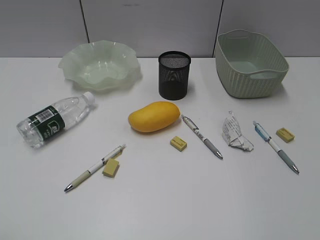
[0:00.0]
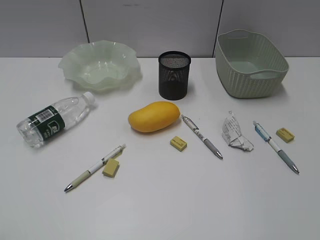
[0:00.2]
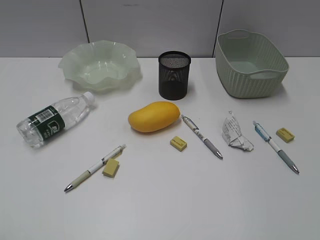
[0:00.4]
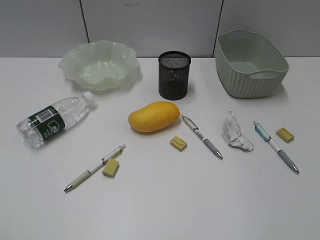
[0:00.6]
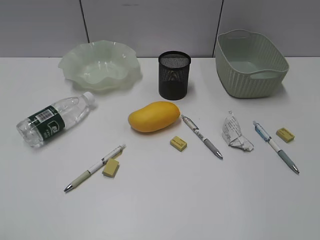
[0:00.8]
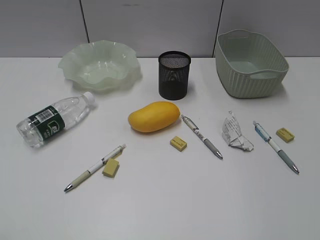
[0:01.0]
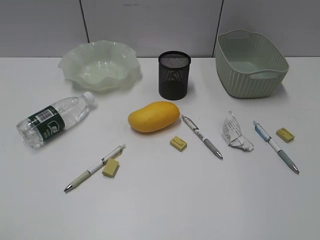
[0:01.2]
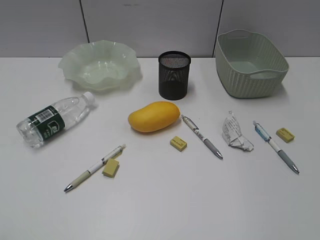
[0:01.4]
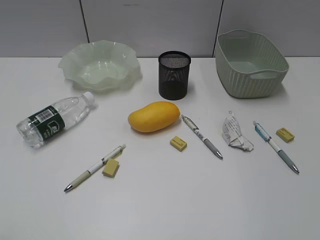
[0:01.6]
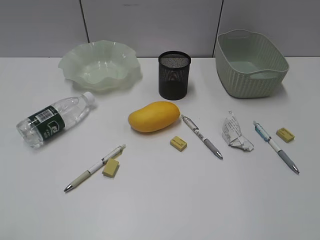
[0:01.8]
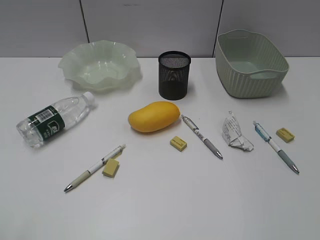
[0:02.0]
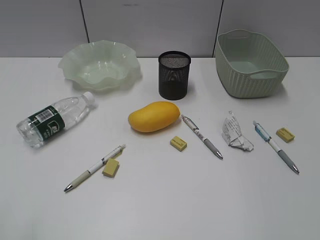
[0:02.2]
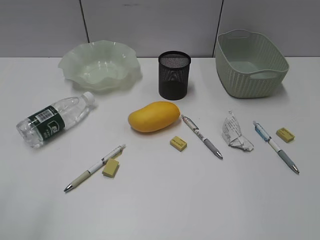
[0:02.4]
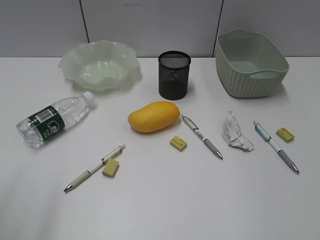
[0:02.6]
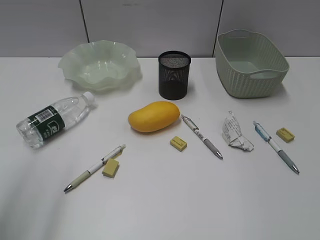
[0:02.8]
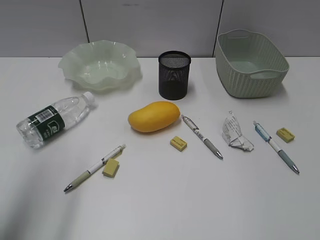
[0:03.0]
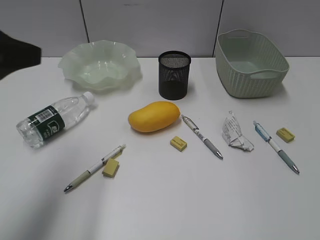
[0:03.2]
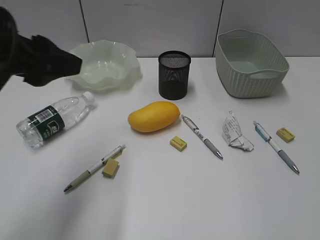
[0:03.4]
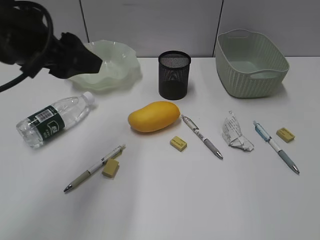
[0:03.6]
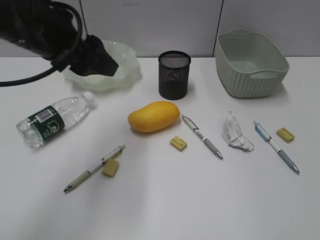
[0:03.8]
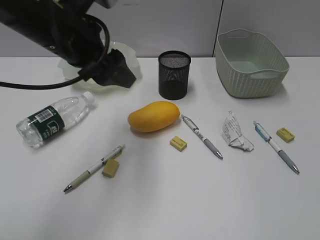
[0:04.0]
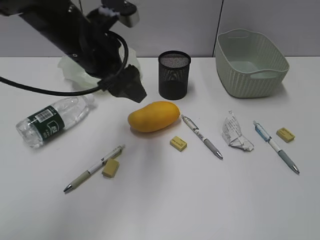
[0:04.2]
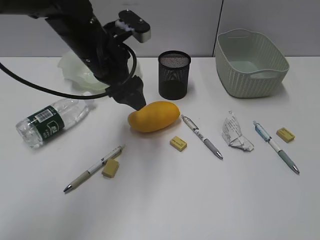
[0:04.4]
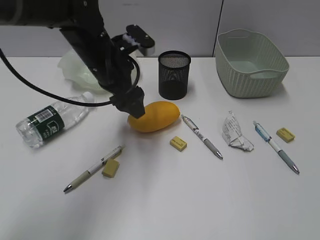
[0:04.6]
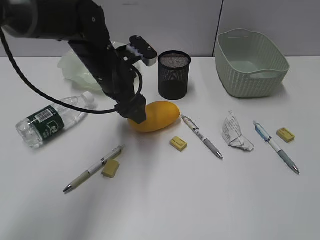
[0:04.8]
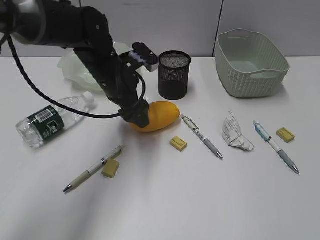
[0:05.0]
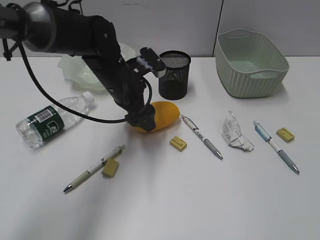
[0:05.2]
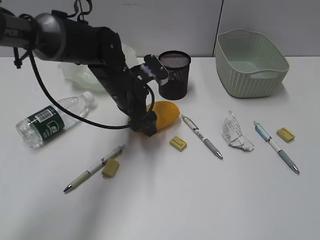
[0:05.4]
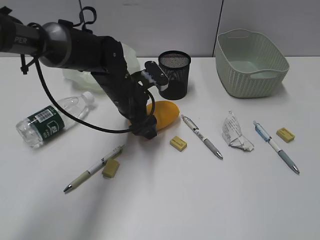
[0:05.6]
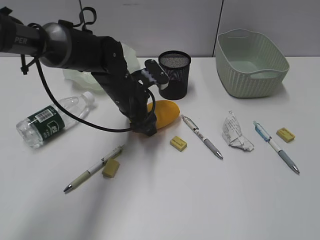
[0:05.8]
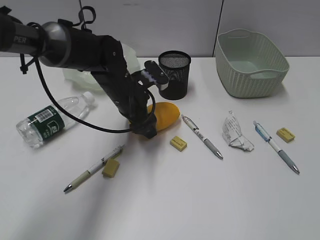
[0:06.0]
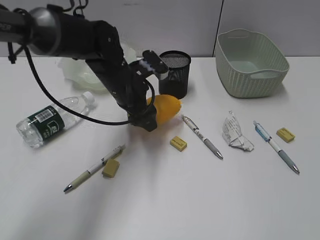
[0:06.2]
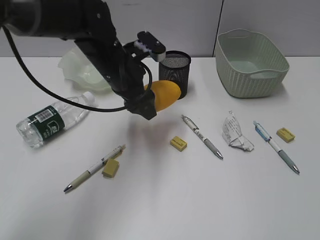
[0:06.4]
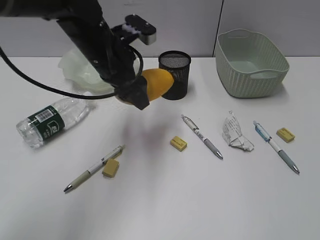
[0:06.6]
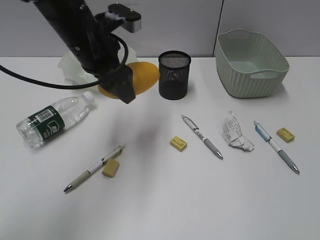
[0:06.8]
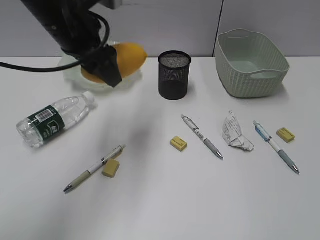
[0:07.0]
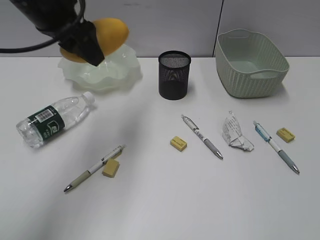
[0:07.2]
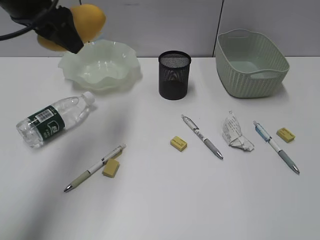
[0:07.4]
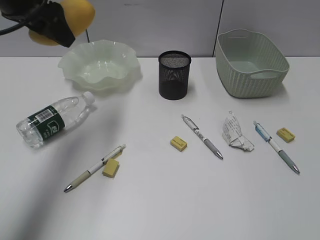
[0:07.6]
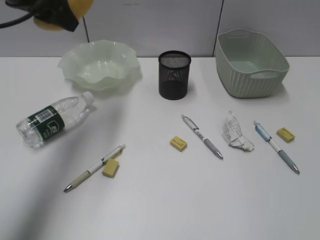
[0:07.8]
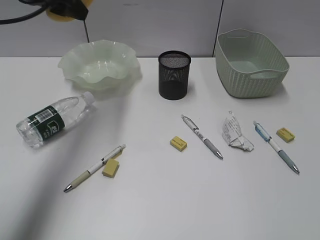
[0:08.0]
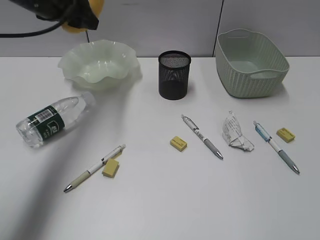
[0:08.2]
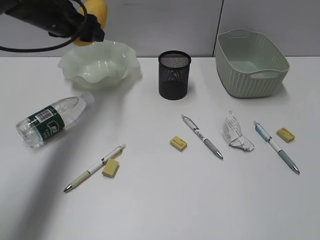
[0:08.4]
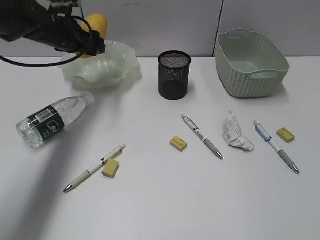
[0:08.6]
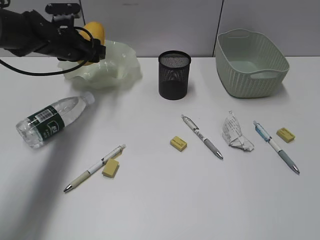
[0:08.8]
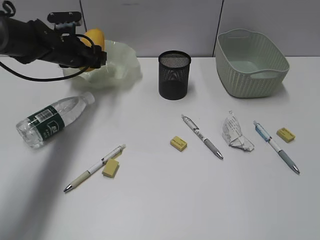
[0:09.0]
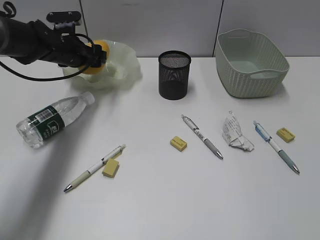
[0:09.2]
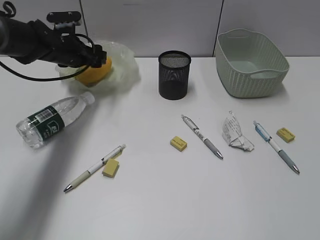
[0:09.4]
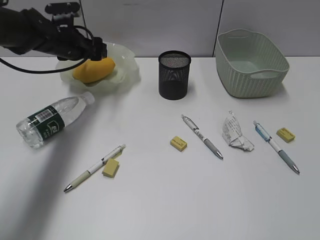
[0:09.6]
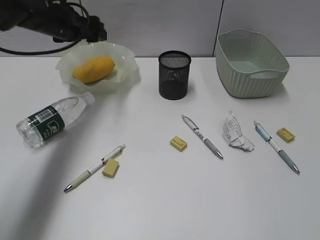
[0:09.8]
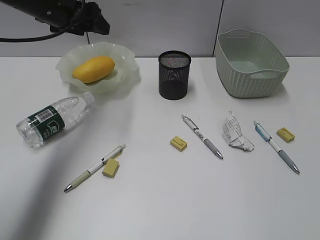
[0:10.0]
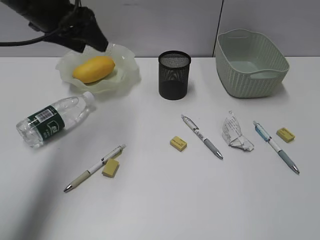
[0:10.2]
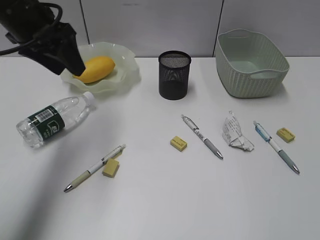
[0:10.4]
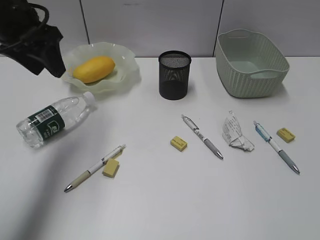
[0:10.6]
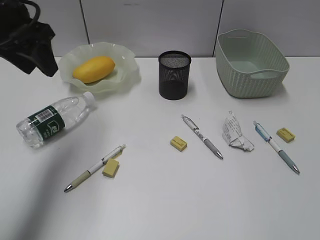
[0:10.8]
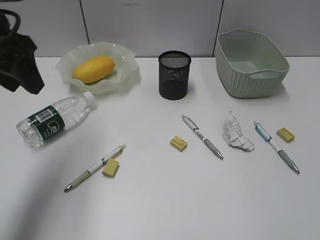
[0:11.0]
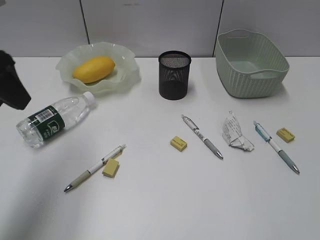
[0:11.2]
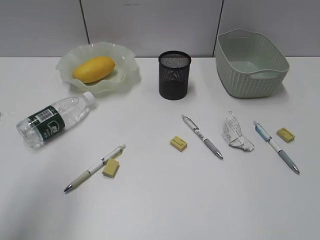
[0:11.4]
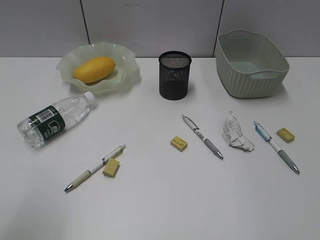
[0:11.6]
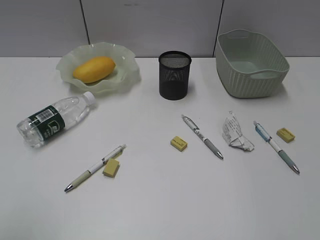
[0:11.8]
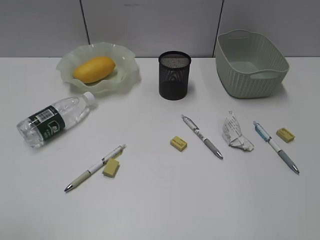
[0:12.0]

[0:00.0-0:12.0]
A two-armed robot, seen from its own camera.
Step, 0:03.2 to 0:05.6: Grasp the mango with left gripper.
Step, 0:05.8 to 0:09.6: Place the mango in the plate with left gripper.
0:01.6 to 0:03.0: The left gripper travels forward by some 20 cm, and opens.
0:03.0 to 0:04.4: The left gripper travels forward, to the right and downward by some 25 cm.
0:04.4 to 0:06.0: The left gripper heads downward, covering about 10 cm.
0:06.0 to 0:07.6: The left gripper moves upward and to the left, some 25 cm.
0:07.6 to 0:09.0: The left gripper shifts roughly 20 cm downward and forward.
0:09.0 to 0:10.4: The left gripper travels upward and backward by roughly 20 cm.
0:10.4 to 0:12.0: The left gripper shifts roughly 35 cm backward.

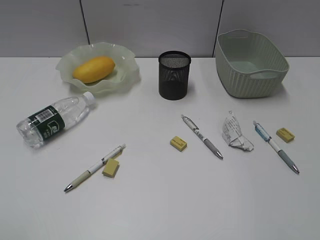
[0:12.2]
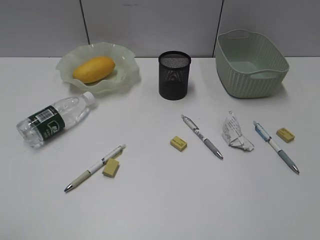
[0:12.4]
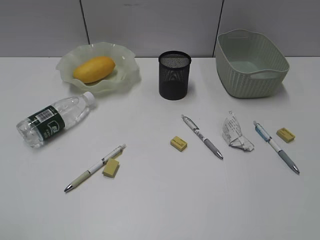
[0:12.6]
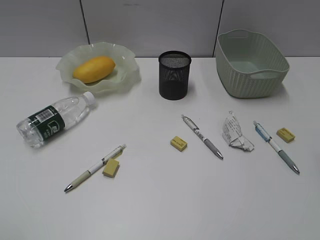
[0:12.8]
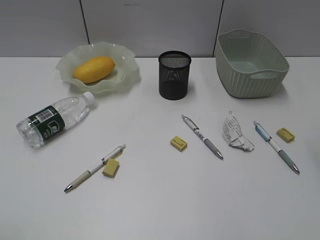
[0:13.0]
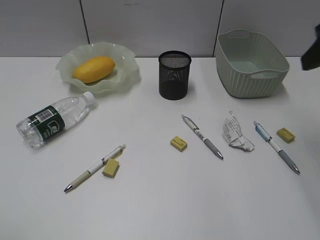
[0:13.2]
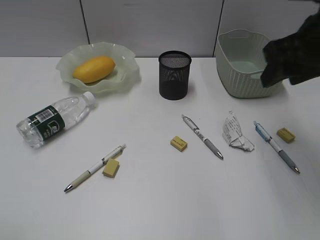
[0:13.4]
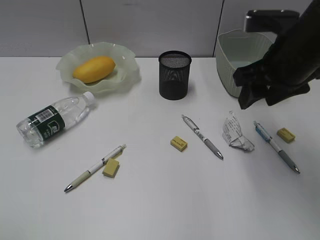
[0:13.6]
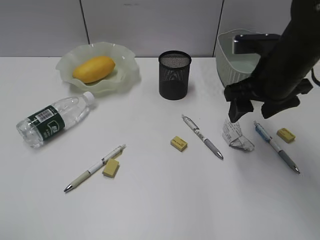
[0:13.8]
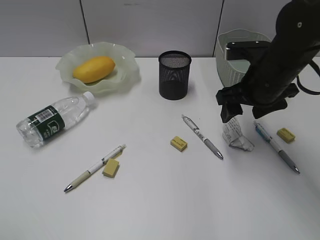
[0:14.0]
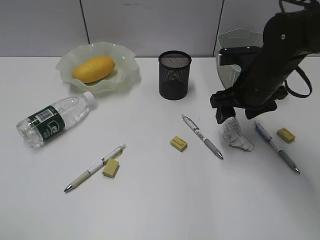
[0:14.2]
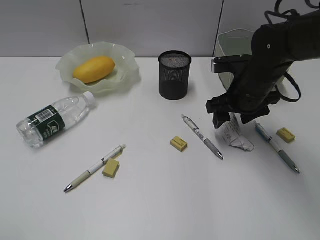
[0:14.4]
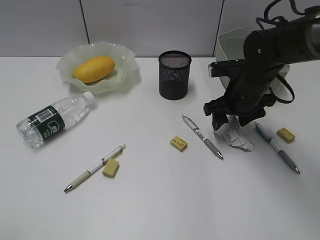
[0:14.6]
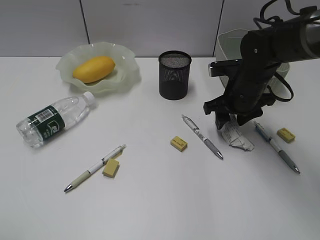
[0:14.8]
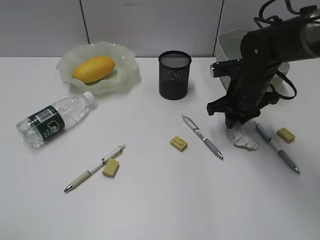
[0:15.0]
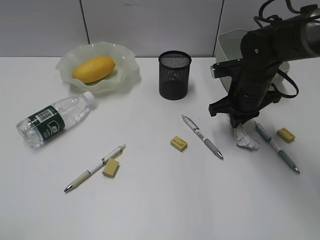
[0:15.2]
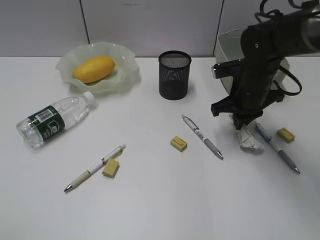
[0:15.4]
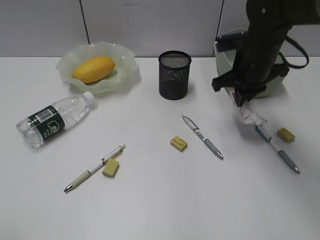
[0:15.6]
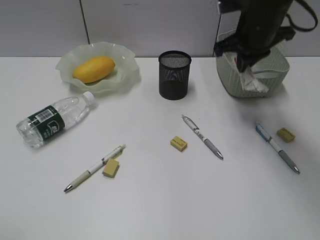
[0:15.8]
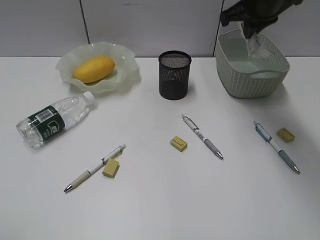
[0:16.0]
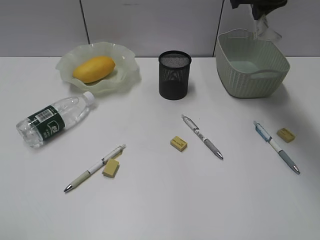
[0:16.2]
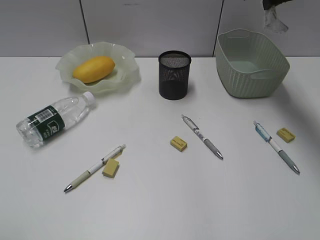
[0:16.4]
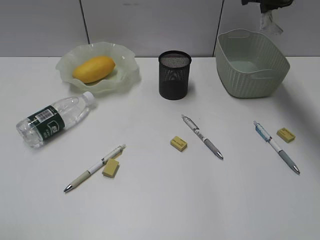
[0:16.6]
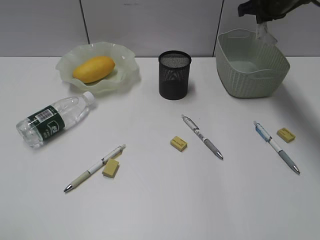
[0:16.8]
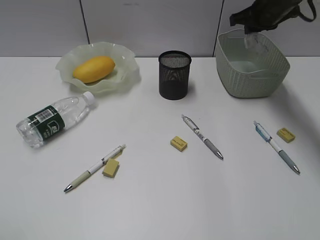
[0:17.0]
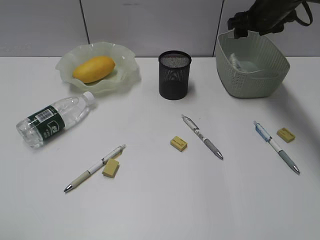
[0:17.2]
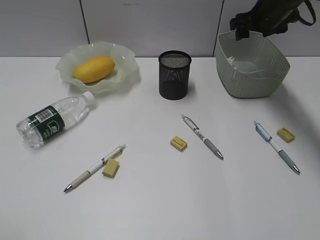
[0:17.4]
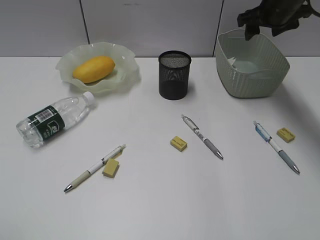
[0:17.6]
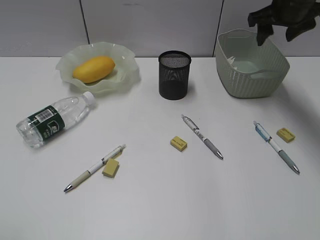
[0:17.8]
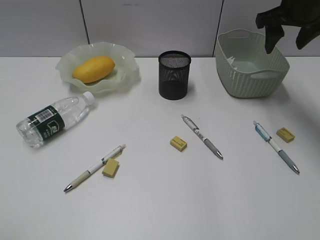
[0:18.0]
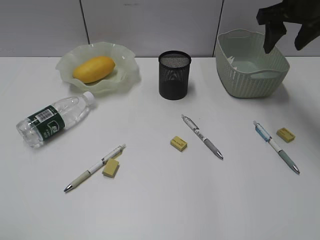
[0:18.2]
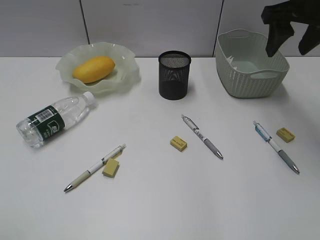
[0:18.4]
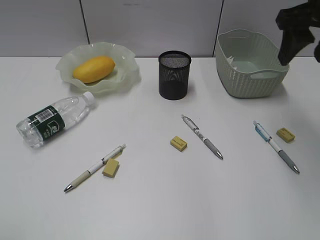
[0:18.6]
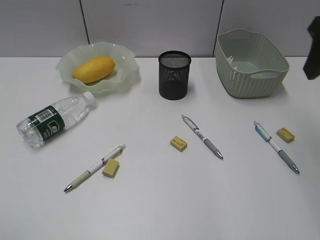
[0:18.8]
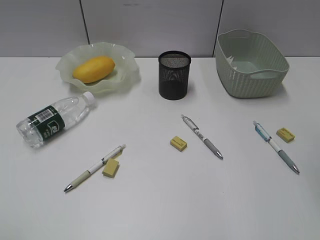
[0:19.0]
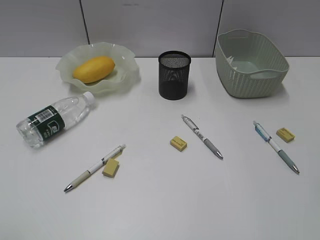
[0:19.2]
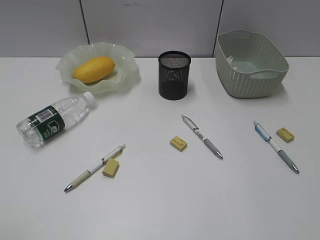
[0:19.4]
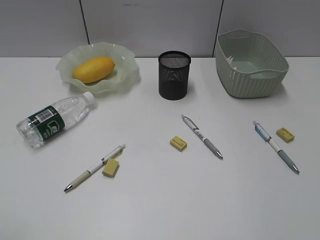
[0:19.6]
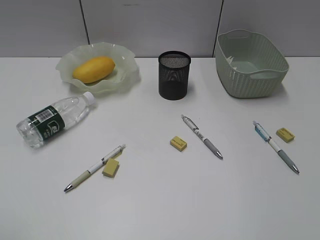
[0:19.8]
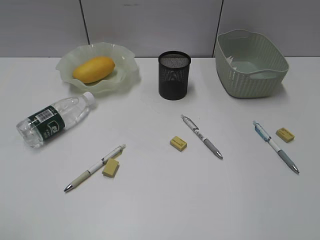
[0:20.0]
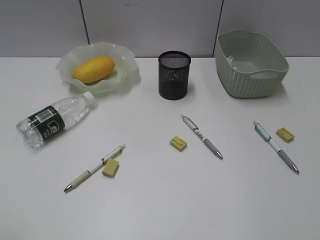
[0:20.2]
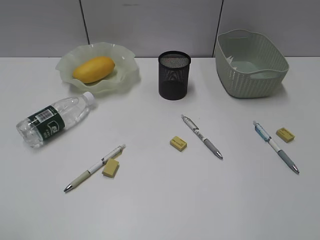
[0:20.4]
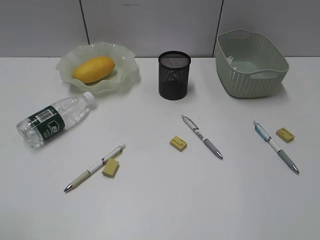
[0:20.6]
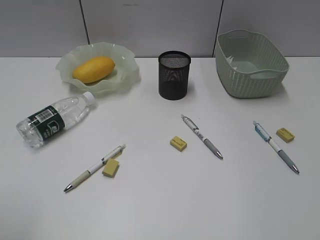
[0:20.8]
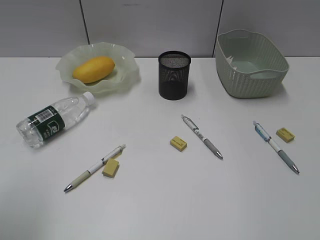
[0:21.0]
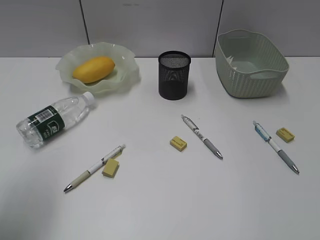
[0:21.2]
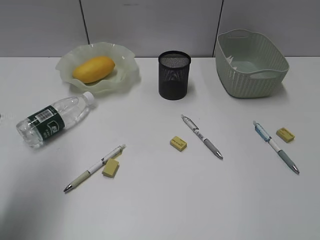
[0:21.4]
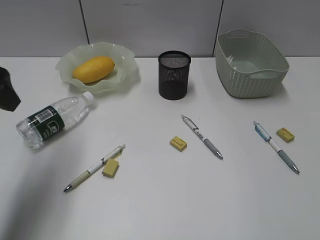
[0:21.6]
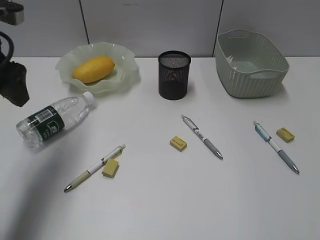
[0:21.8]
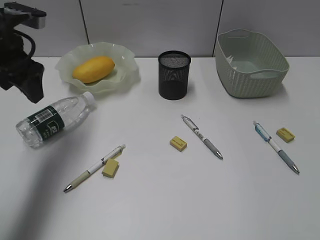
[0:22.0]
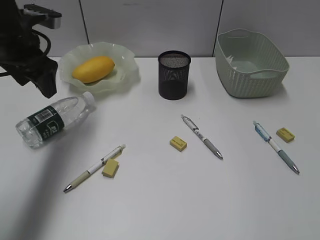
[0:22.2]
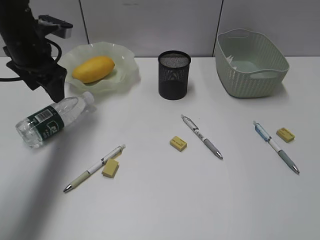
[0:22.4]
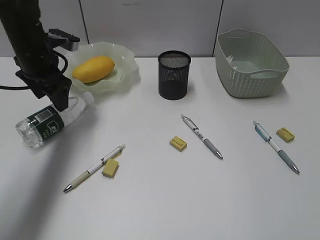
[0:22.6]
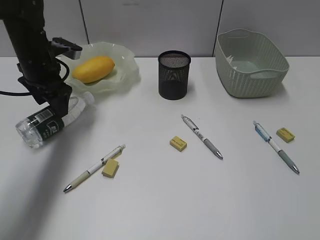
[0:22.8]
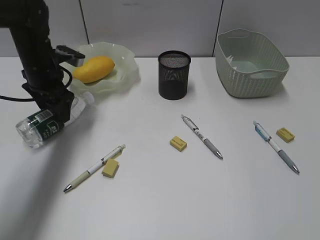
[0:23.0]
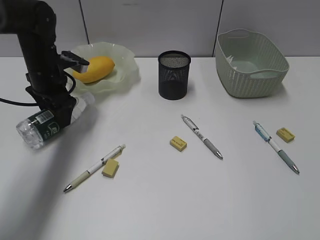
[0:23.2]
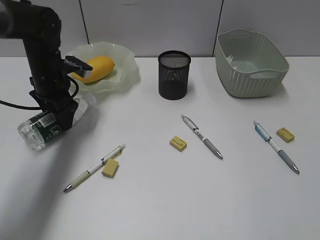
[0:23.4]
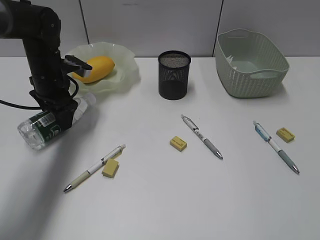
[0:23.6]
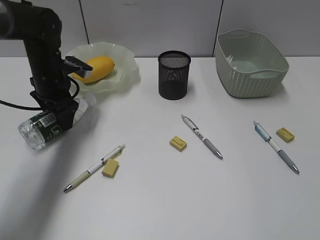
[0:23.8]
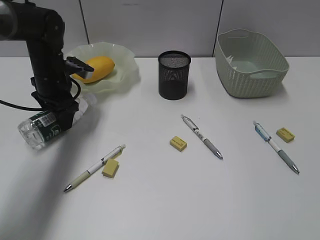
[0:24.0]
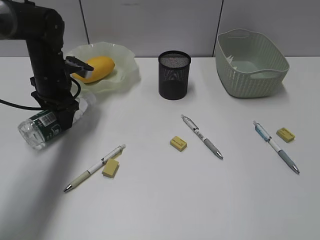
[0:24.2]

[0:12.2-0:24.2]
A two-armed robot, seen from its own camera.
Step, 0:12.2 to 0:15.2: Grasp the waste paper with right gripper.
Step, 0:15.4 to 0:17.2: Place the waste paper in the basket with right gripper.
Step, 0:17.4 to 0:24.0: Grasp the bottle with left gripper.
0:12.2 to 0:13.8: The right gripper moves forward, about 30 cm.
0:13.8 to 0:15.2: The right gripper goes approximately 10 cm downward and forward, and closes its fingers.
0:15.2 to 0:16.6: The right gripper goes approximately 20 cm upward and forward.
0:16.6 to 0:18.2: The right gripper moves backward, approximately 5 cm, and opens up.
0:18.2 to 0:19.8: The right gripper goes roughly 40 cm backward.
0:19.8 to 0:21.2: The left gripper is displaced forward by about 10 cm.
0:21.2 to 0:22.6: The left gripper is displaced forward by roughly 30 cm.
0:22.6 to 0:24.2: The left gripper heads downward, covering roughly 5 cm.
